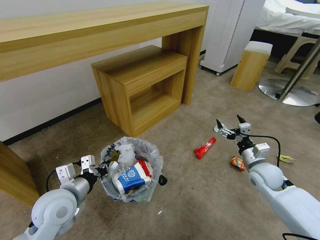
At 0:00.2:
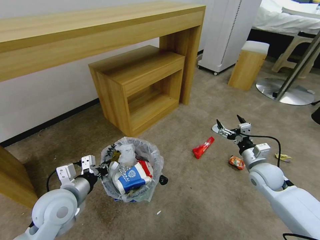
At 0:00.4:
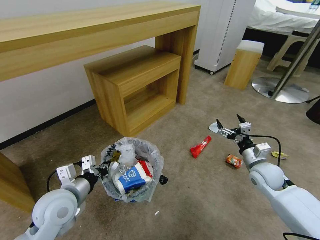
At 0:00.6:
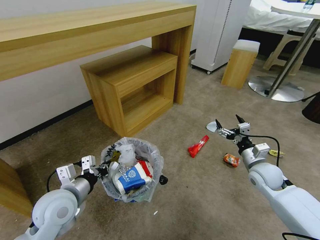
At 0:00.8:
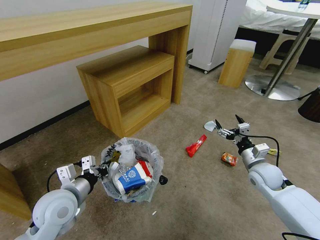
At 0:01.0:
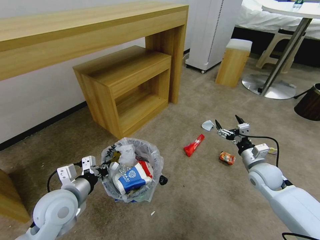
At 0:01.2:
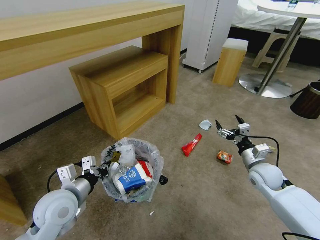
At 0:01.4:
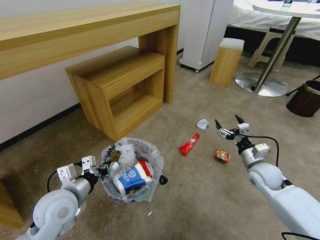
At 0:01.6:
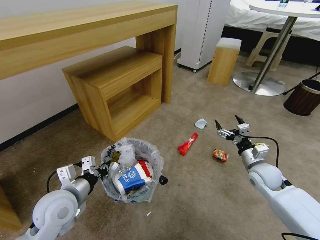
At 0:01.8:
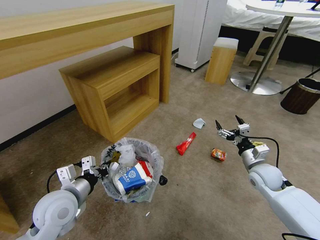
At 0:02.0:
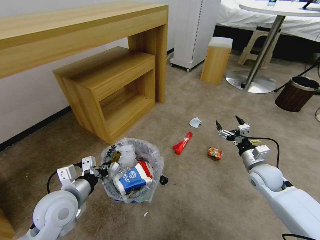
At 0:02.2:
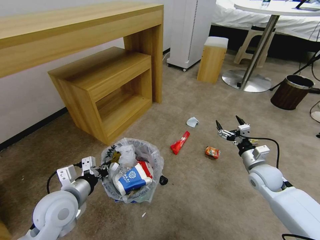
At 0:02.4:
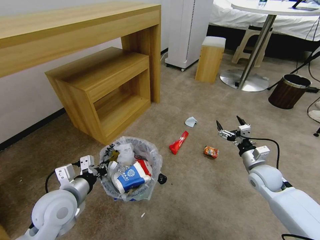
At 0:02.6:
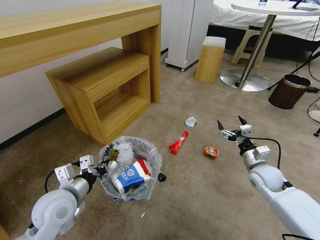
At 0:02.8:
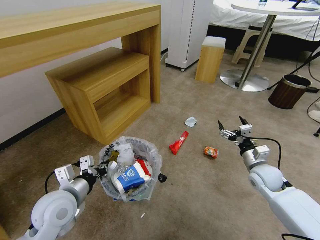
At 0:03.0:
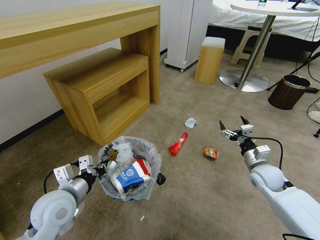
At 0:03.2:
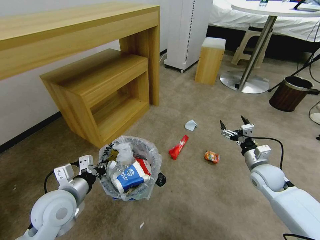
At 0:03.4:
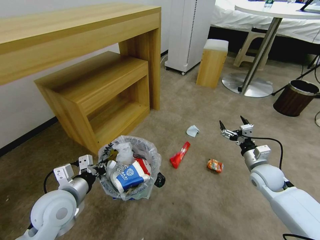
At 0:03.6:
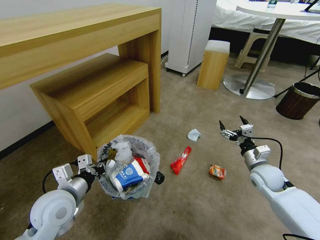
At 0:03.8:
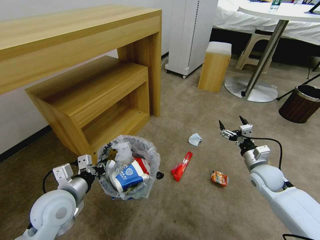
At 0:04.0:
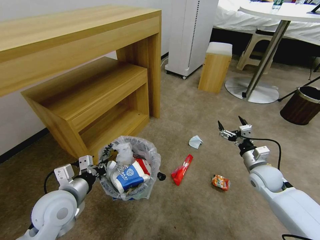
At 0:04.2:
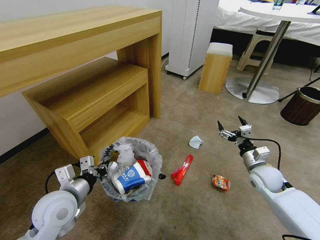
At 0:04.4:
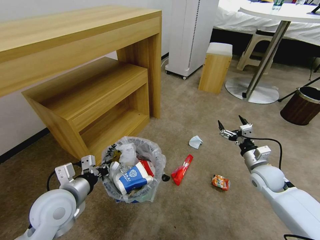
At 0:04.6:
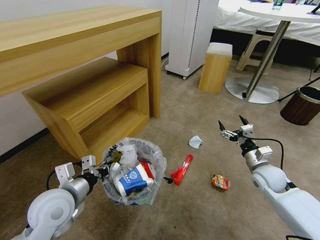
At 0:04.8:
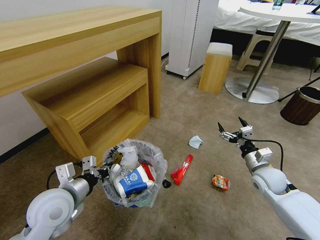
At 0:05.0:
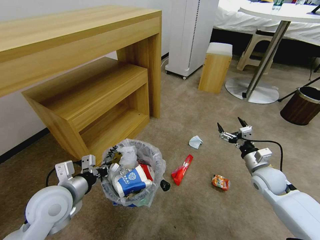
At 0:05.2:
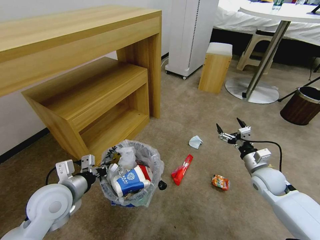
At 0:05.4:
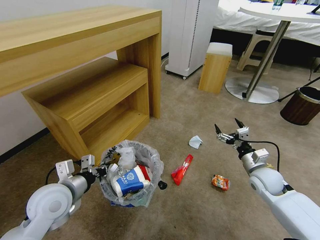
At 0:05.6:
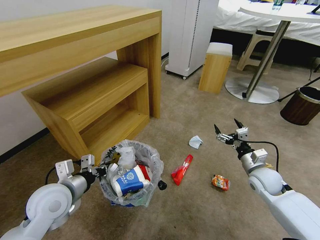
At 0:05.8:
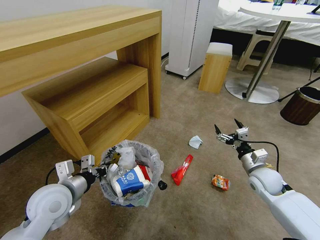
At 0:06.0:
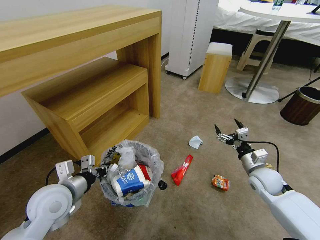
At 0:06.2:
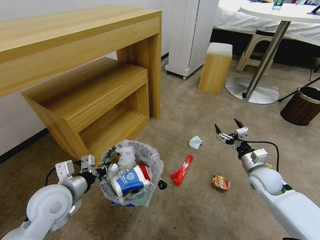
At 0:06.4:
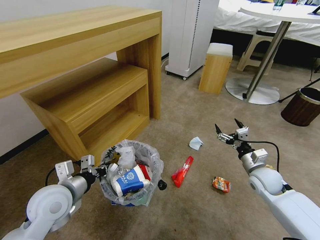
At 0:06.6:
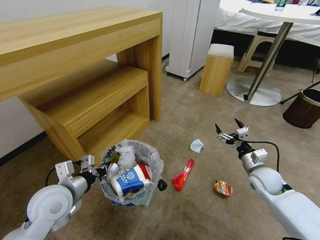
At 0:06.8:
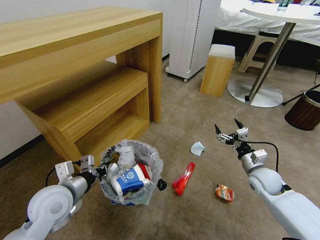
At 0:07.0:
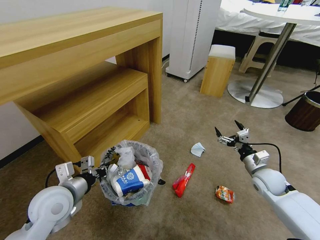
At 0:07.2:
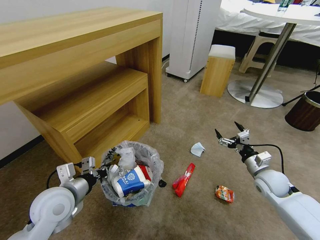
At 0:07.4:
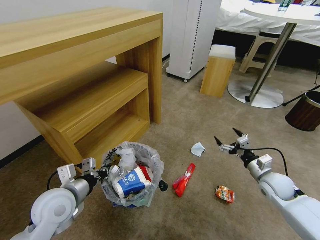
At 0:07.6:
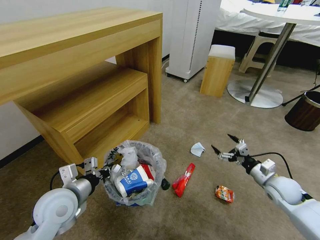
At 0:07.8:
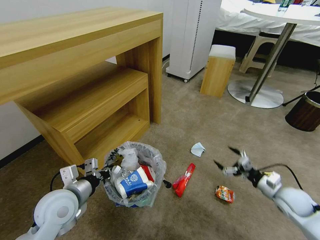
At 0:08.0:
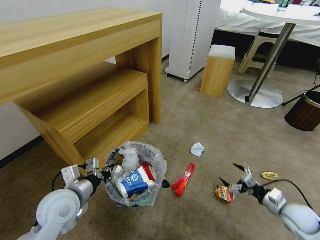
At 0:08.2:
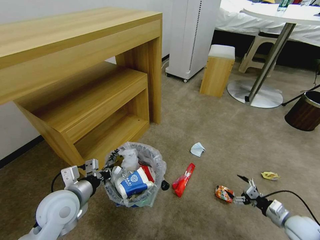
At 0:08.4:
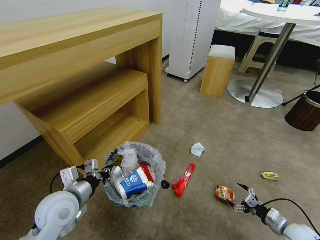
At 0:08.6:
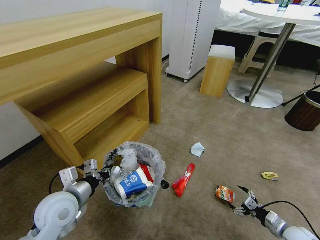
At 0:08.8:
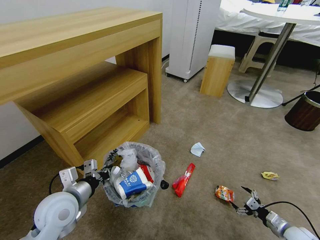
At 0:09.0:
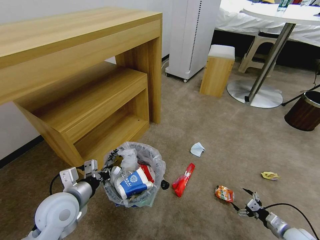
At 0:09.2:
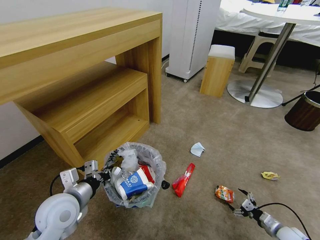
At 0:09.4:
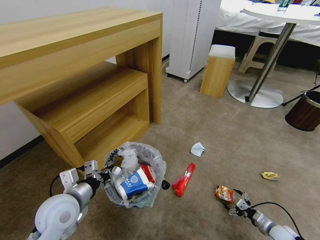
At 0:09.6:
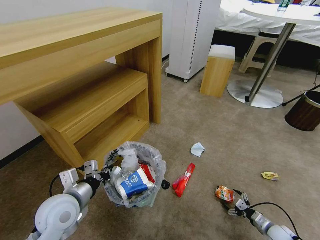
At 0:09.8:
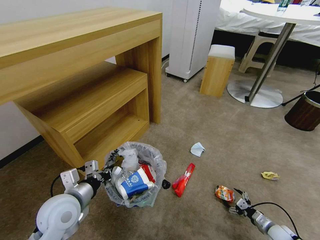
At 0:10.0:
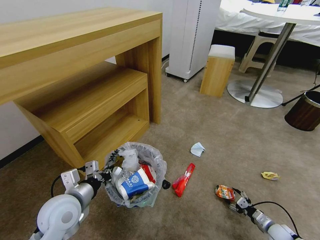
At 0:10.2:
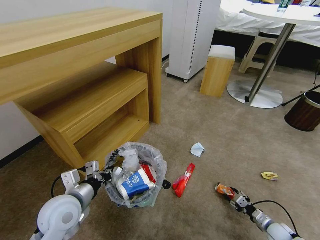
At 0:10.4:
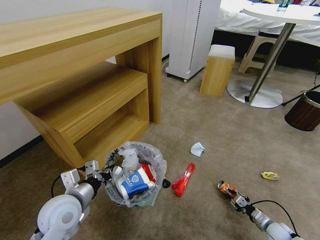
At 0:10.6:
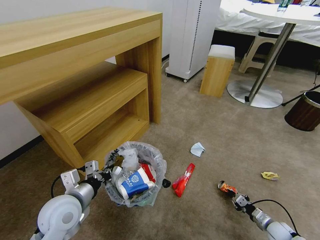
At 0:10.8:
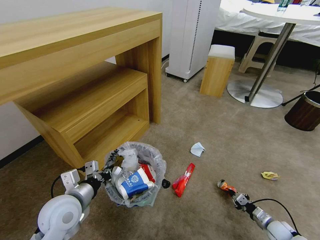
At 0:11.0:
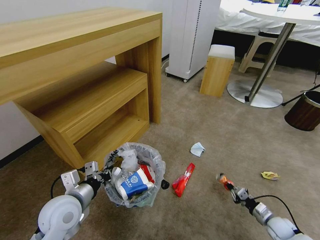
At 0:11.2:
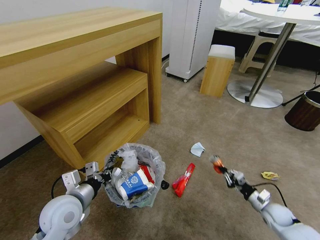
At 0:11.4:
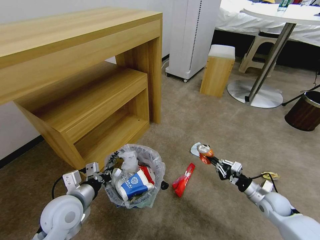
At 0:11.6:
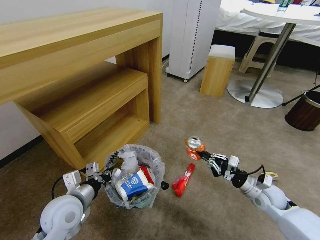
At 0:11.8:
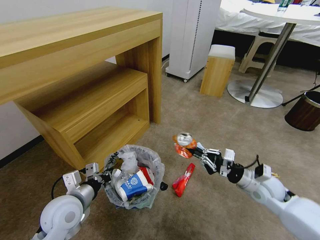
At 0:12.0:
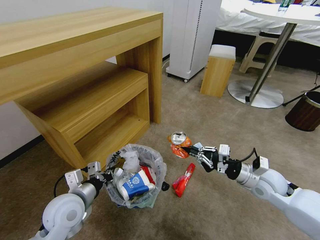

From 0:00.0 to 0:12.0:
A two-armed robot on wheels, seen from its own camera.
Task of the whole recording: Pick up the trash bin and place the garbage on the floor into it.
From 0:04.4 to 0:06.0: The grippers move only a little.
From 0:06.0 to 0:07.6: The right gripper moves to the right, roughly 5 cm.
From 0:07.6 to 0:09.0: The right gripper moves downward, backward and to the right, approximately 25 cm.
From 0:09.0 to 0:10.4: The right gripper travels downward by roughly 5 cm, and closes.
From 0:10.4 to 0:12.0: The right gripper heads upward and to the left, covering some 30 cm.

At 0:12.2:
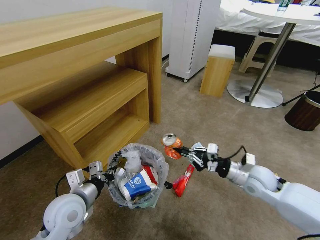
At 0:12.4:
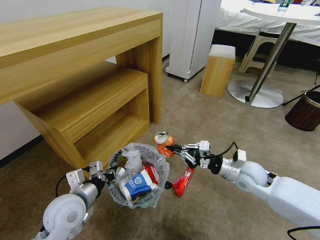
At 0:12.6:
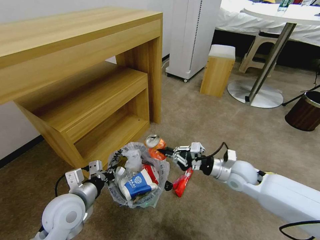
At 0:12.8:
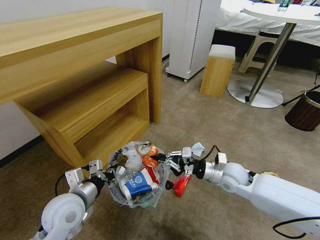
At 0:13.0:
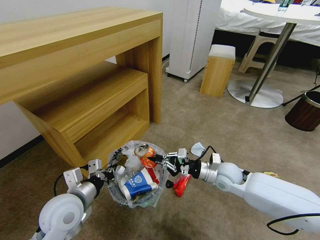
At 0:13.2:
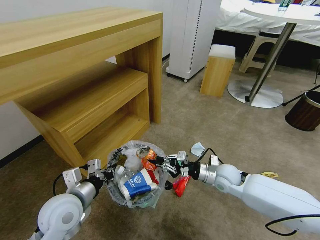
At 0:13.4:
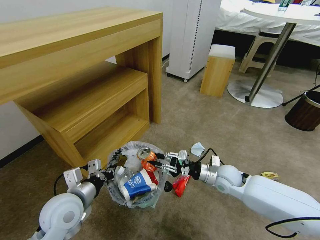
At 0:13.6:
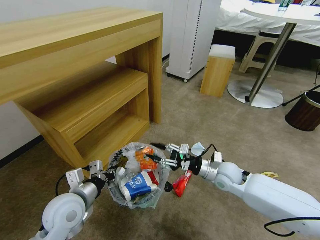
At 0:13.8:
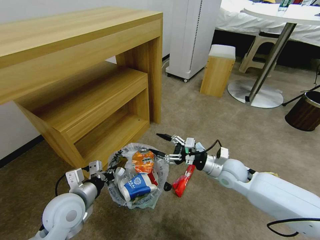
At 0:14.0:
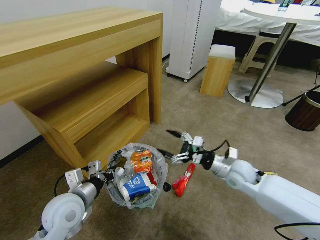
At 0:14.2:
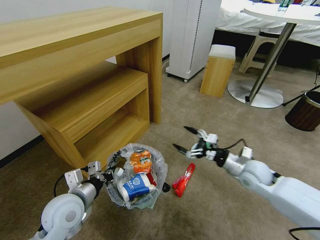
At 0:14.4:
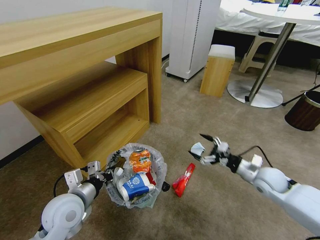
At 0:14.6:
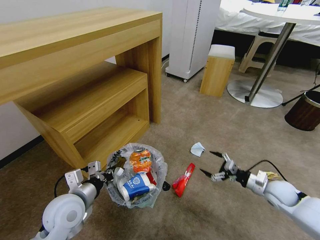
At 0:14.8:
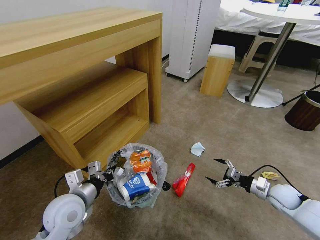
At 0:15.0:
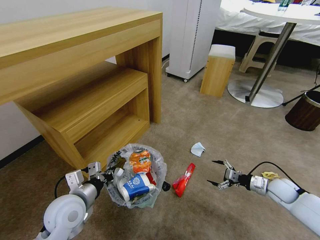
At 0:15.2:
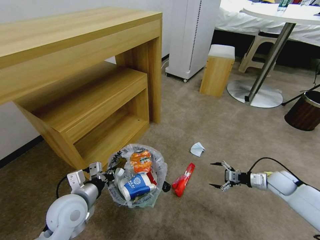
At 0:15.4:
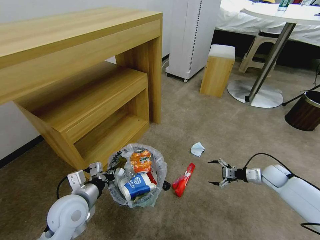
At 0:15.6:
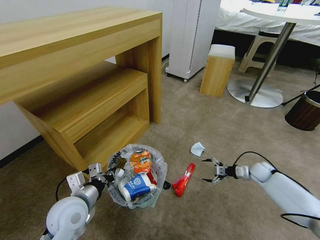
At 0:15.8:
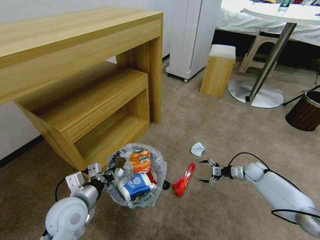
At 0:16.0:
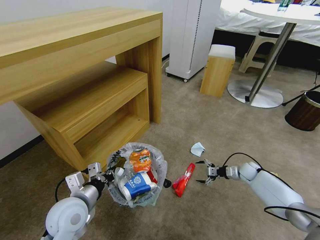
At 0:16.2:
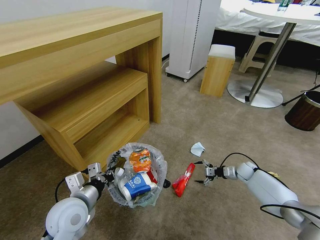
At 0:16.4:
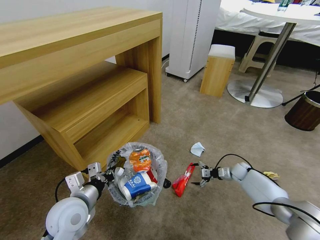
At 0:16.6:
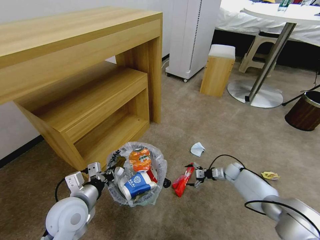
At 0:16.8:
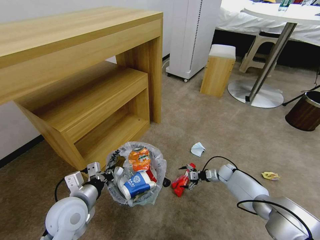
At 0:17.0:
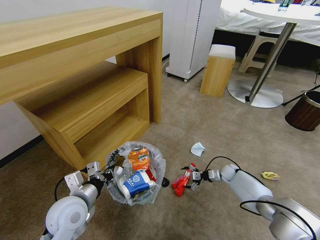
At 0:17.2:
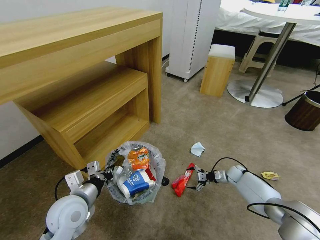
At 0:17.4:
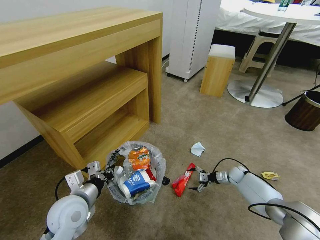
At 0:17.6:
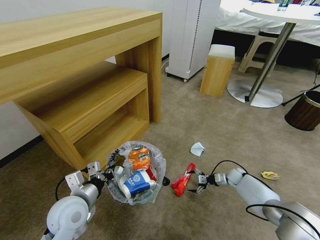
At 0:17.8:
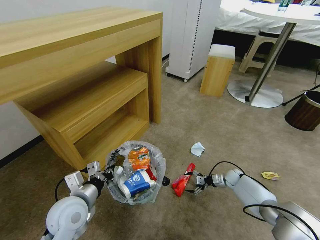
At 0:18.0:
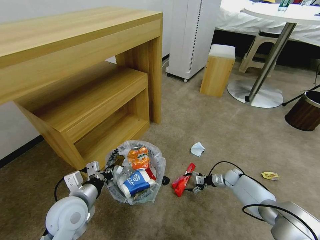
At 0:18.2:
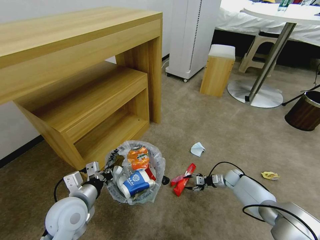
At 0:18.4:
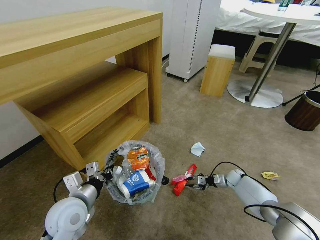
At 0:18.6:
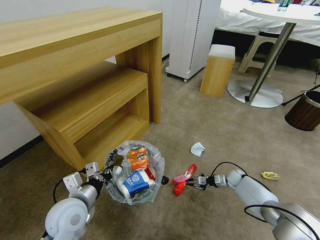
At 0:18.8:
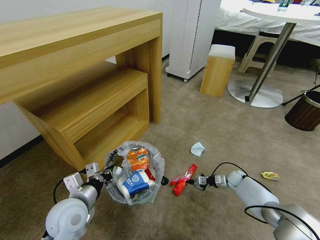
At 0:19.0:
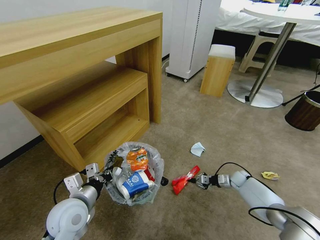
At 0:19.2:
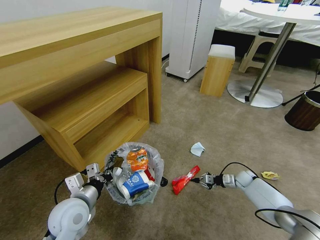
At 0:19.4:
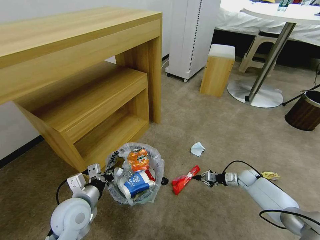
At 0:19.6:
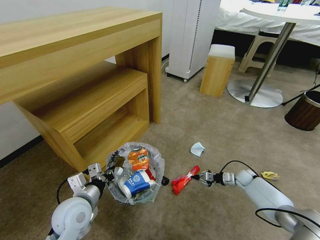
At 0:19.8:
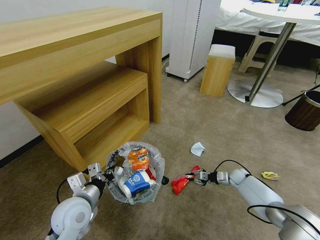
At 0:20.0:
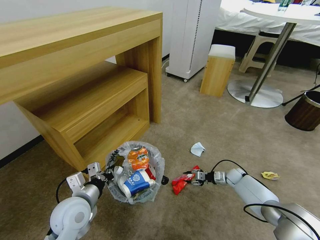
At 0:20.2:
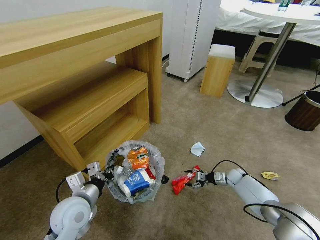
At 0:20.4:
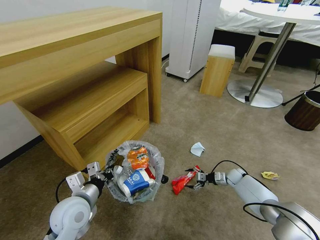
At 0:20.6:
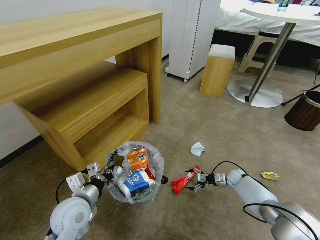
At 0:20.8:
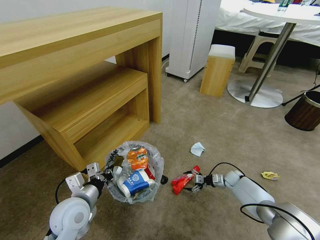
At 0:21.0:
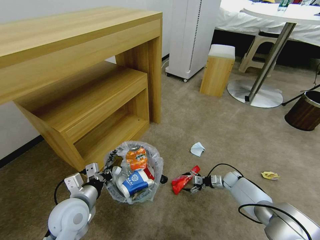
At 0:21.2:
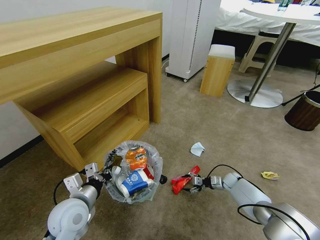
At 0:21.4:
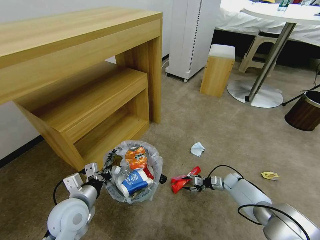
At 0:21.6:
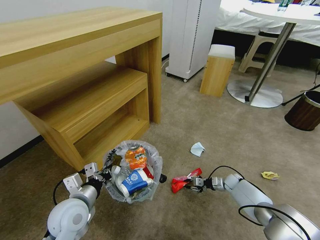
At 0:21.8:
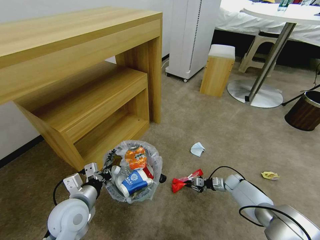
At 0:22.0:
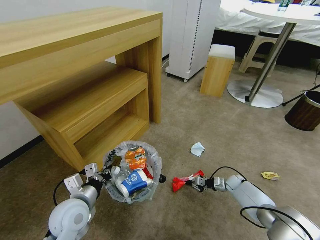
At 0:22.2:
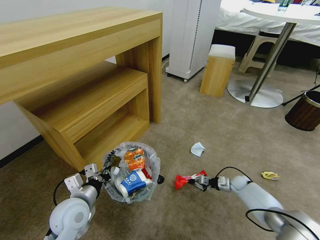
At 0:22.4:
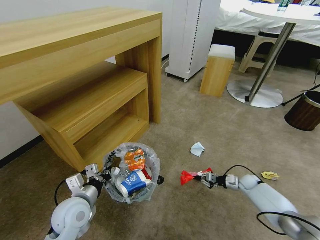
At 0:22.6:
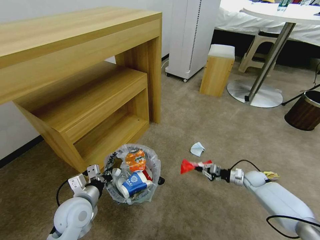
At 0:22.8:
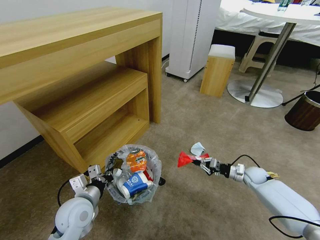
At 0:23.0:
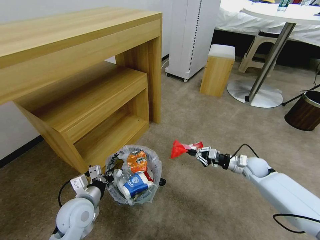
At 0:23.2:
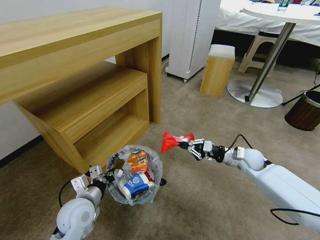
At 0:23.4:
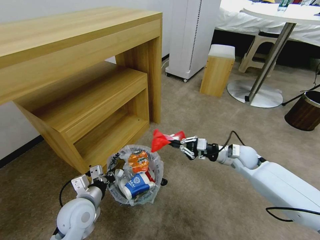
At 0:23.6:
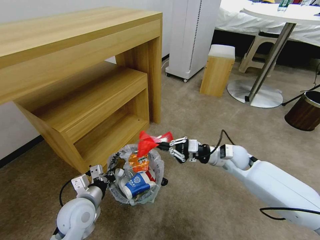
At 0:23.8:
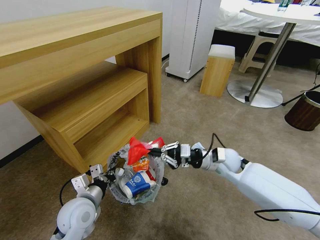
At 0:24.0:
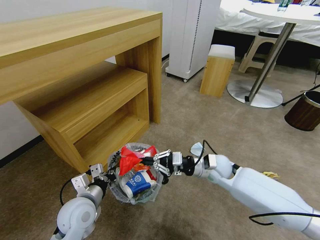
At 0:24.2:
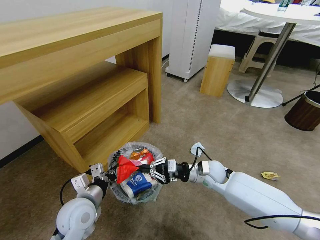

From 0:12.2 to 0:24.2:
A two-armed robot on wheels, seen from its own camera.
Task of the whole recording: Pick up the trash bin and place the garbage on the floor into it.
From 0:12.2 to 0:13.8: The right gripper is displaced to the left by roughly 10 cm, and opens its fingers.
From 0:13.8 to 0:15.2: The right gripper moves to the right, about 25 cm.
From 0:15.2 to 0:16.6: The right gripper shifts about 20 cm downward, forward and to the left.
From 0:16.6 to 0:18.2: The right gripper closes its fingers.
From 0:18.2 to 0:19.8: The grippers make only small movements.
From 0:19.8 to 0:21.2: The right gripper opens its fingers.
From 0:21.2 to 0:22.6: The right gripper travels to the right and upward by some 10 cm, and closes up.
From 0:22.6 to 0:24.2: The right gripper shifts about 30 cm to the left and upward.
